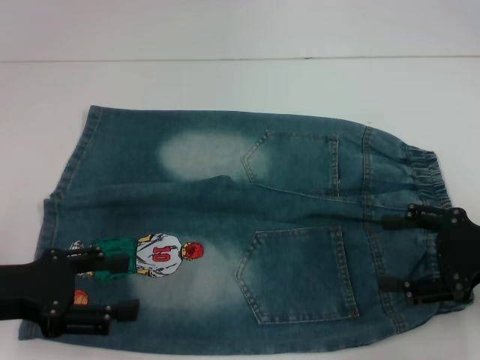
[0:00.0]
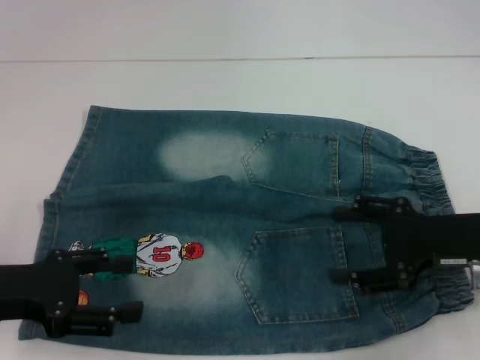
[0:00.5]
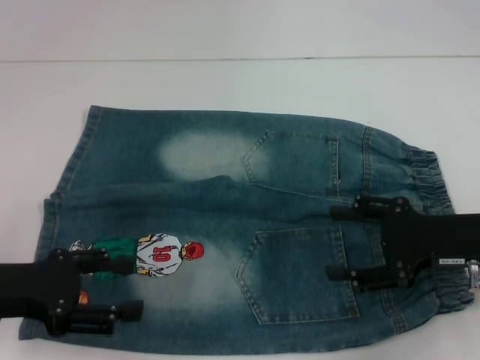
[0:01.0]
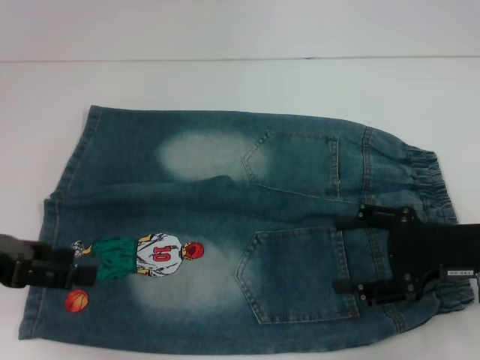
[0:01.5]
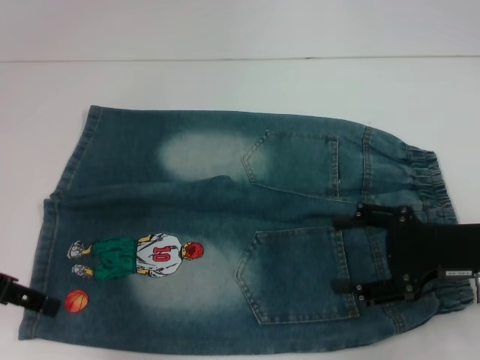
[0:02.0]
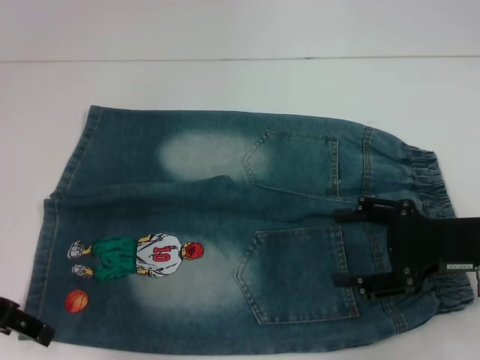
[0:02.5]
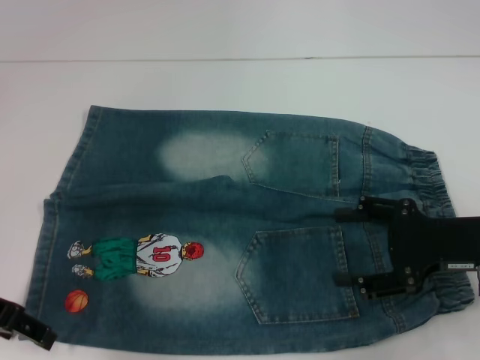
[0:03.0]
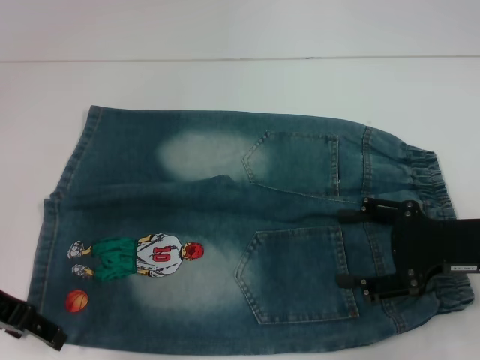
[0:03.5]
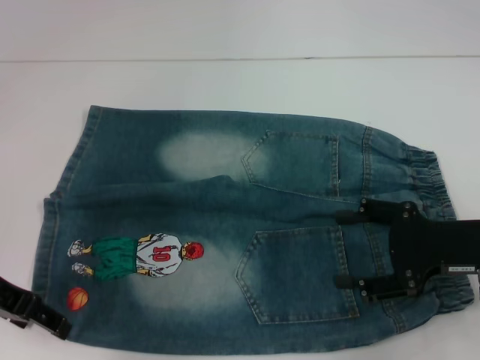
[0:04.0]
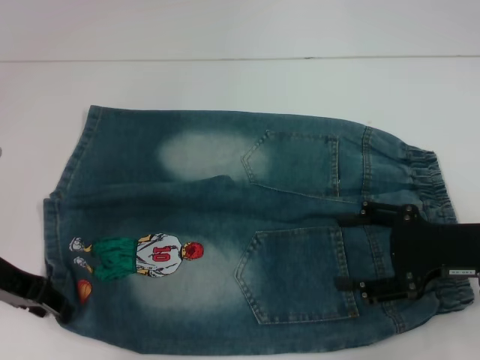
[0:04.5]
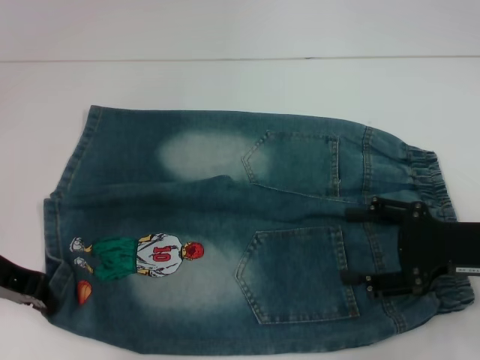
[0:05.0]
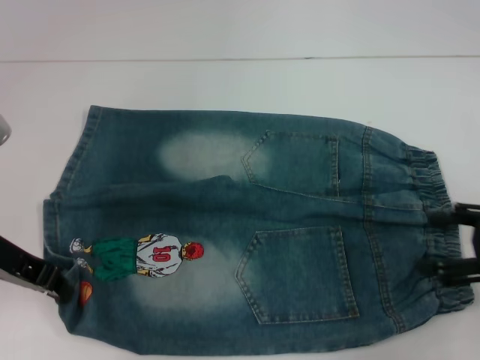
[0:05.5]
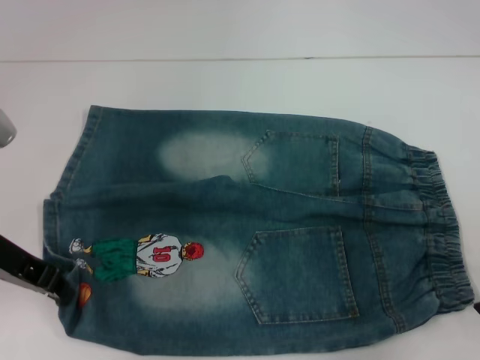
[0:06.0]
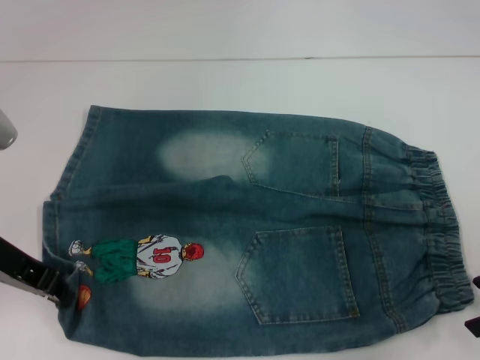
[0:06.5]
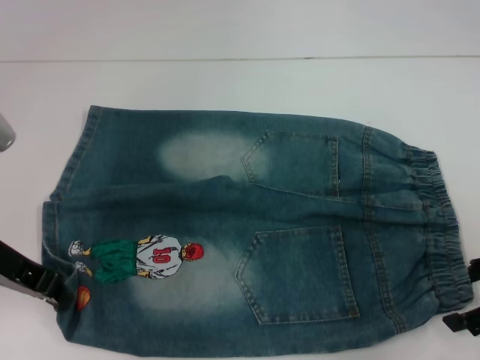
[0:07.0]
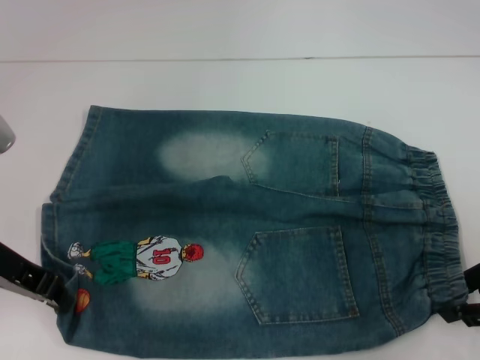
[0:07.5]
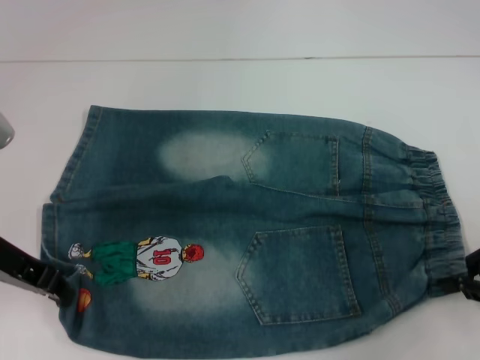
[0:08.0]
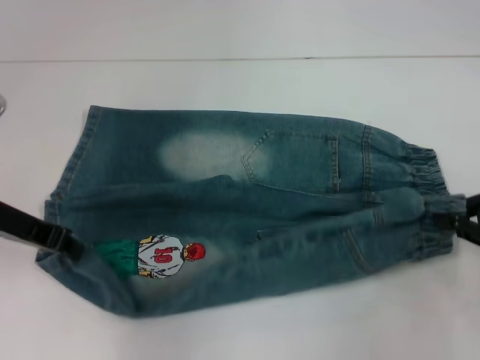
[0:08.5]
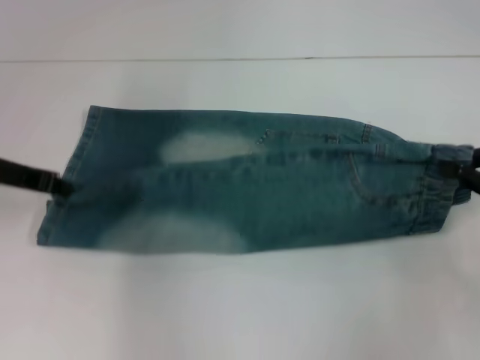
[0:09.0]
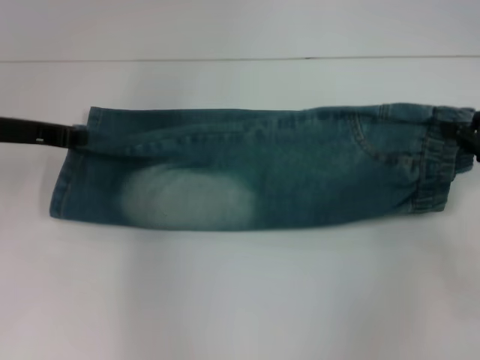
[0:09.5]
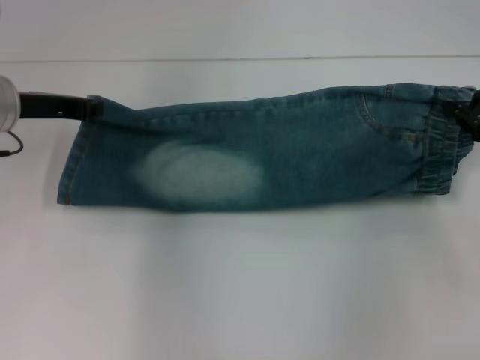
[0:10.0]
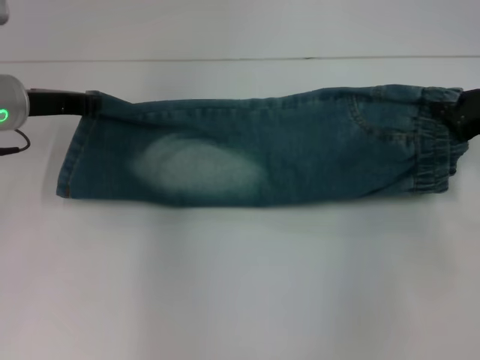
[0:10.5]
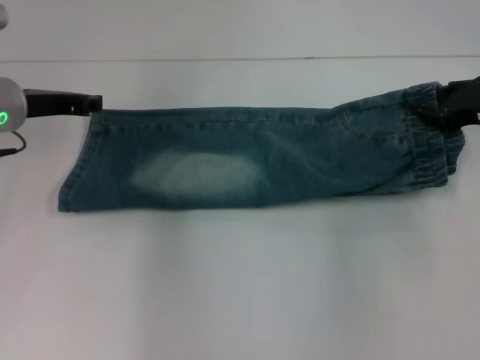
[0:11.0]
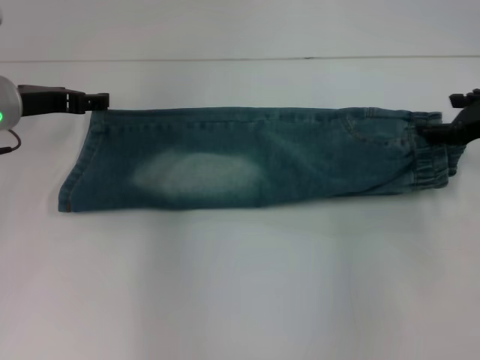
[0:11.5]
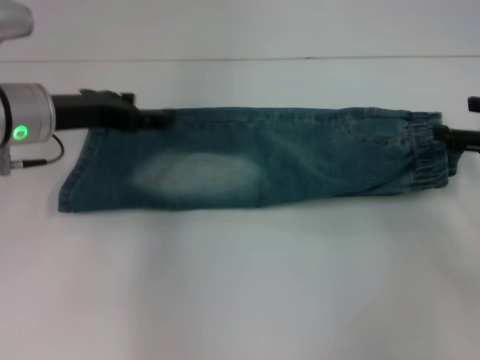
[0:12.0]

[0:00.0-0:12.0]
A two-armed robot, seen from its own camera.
Step, 0:00.0 to 0:05.0: Grab the lower left pant leg with your left hand.
Step, 0:05.5 to 0:07.5: Hold the lower right waistband with your right hand.
Step, 0:08.0 to 0:10.5: Fold upward with your left hand.
0:00.0 to 0:02.0: The left gripper moves upward, approximately 5 cm.
0:02.0 to 0:04.0: The grippers stay close to where they were, moving slightly.
0:04.0 to 0:06.0: The left gripper closes, while the right gripper heads to the right, covering some 10 cm.
0:06.0 to 0:08.0: The right gripper closes its fingers.
0:08.0 to 0:10.0: The grippers both shift forward by about 10 cm.
0:10.0 to 0:12.0: The left gripper opens up. The right gripper opens its fingers.

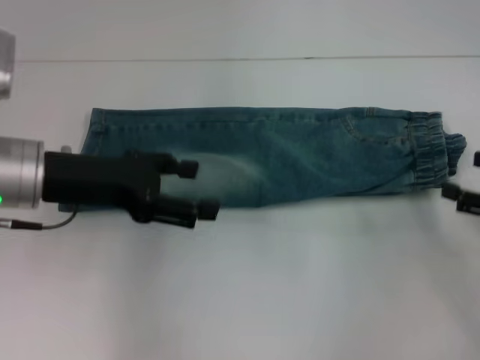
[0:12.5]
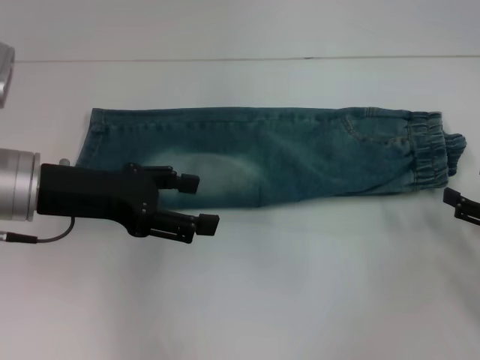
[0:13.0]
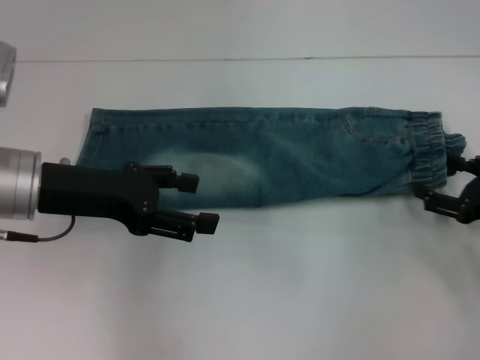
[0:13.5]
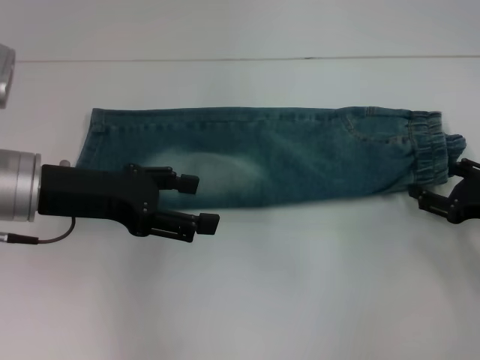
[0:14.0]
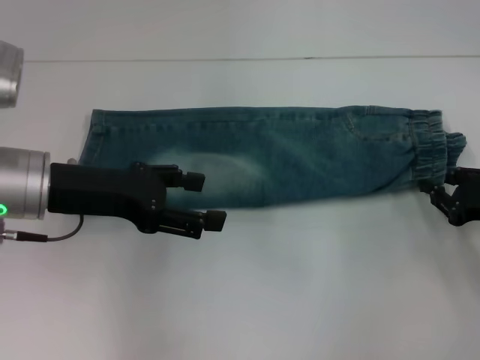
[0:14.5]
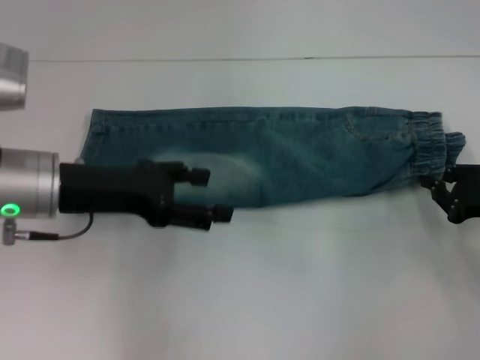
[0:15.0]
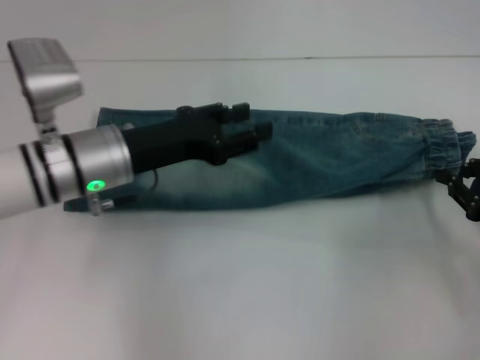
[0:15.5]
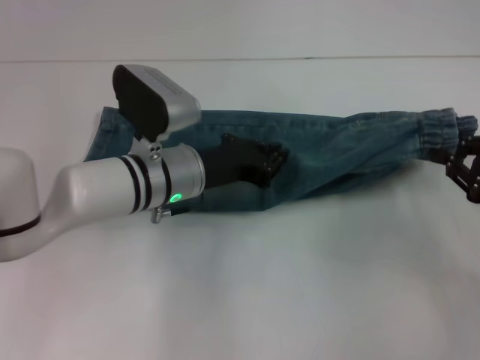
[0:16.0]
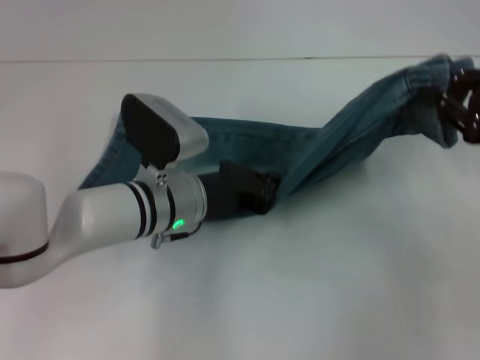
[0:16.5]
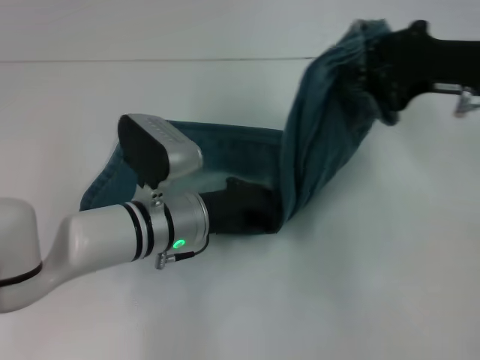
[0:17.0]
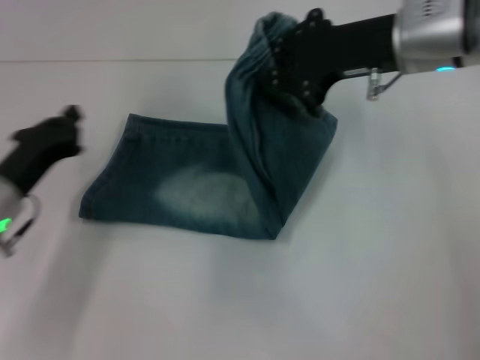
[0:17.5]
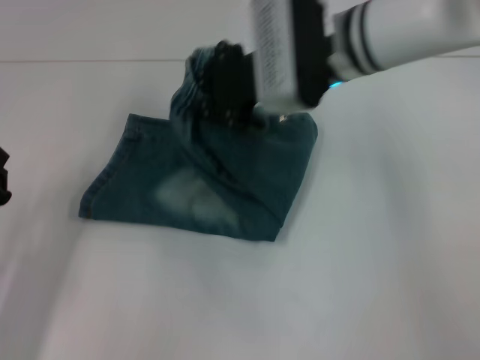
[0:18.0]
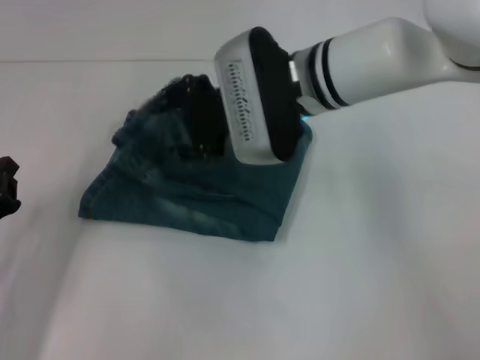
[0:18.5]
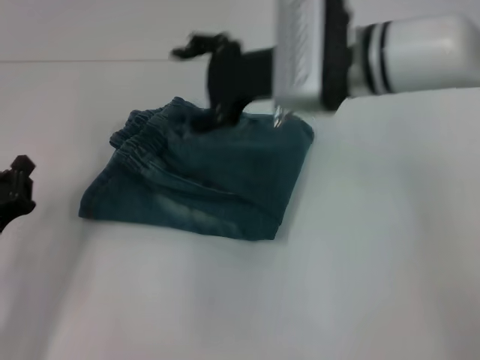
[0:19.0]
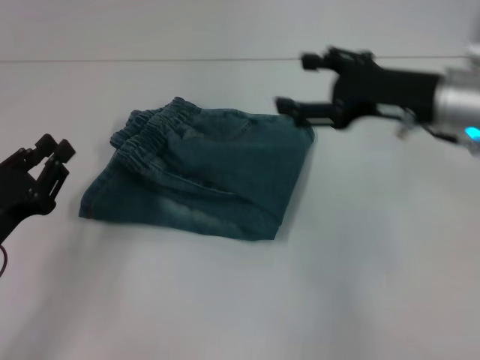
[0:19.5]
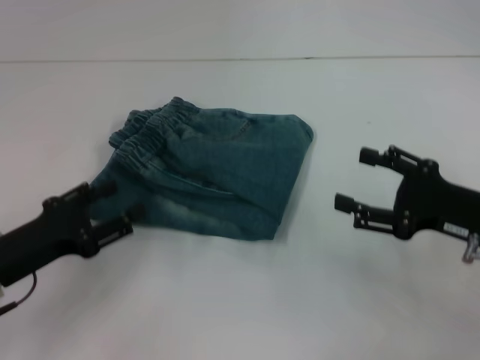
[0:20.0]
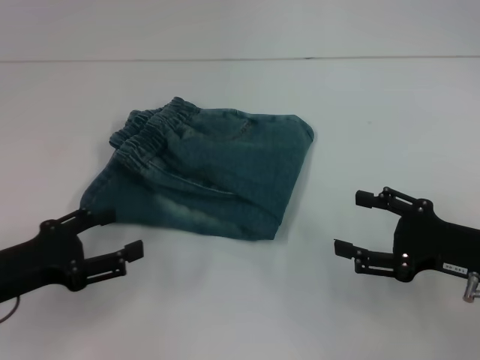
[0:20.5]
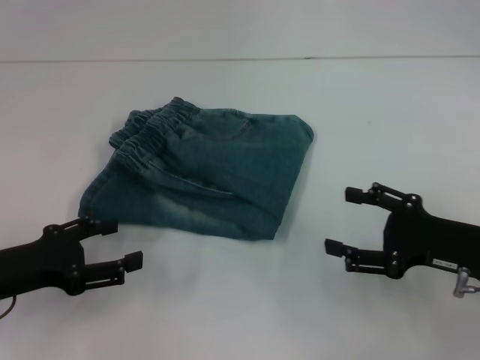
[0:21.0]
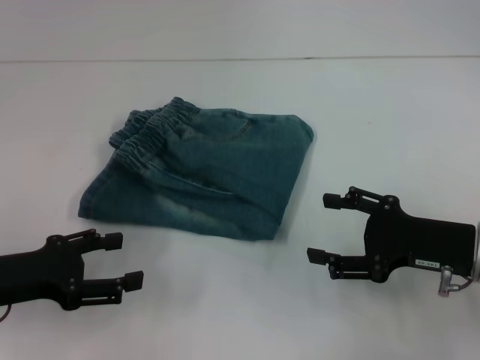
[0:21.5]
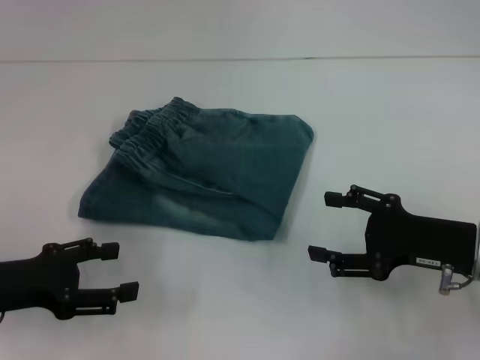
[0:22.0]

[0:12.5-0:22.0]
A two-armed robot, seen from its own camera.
Step, 0:12.5 to 0:14.5: Grab the waistband with your right hand.
Step, 0:15.0 to 0:16.5: Press the middle of the pants with your left hand.
Step, 0:17.0 to 0:18.5: Fold to the left with your right hand.
0:12.5 to 0:14.5: The right gripper moves about 5 cm, and closes up.
0:14.5 to 0:16.5: The left gripper shifts about 15 cm to the right and downward, and closes its fingers. The right gripper travels upward by roughly 10 cm, and closes its fingers.
0:16.5 to 0:18.0: The right gripper is displaced to the left and forward by roughly 25 cm; the left gripper moves to the left and backward, roughly 25 cm.
0:18.0 to 0:20.0: The right gripper heads to the right, backward and downward, covering some 25 cm, and opens. Meanwhile the left gripper opens its fingers.
0:20.0 to 0:22.0: The left gripper opens up.

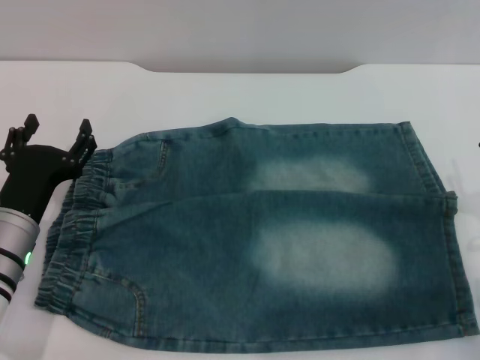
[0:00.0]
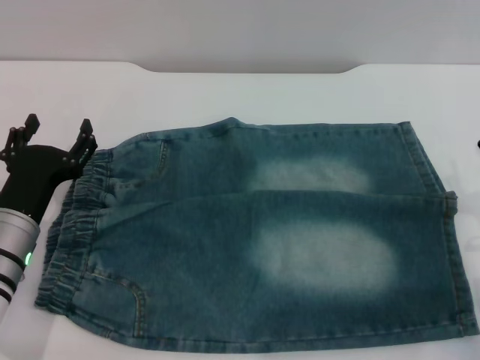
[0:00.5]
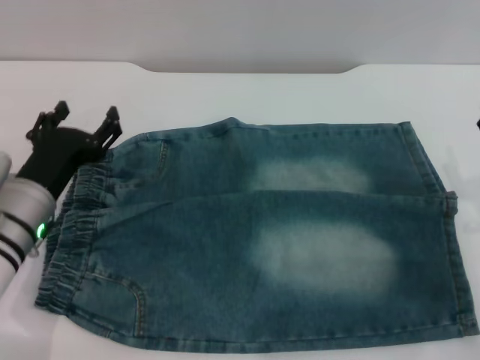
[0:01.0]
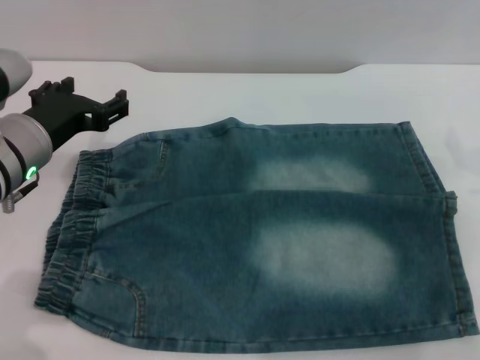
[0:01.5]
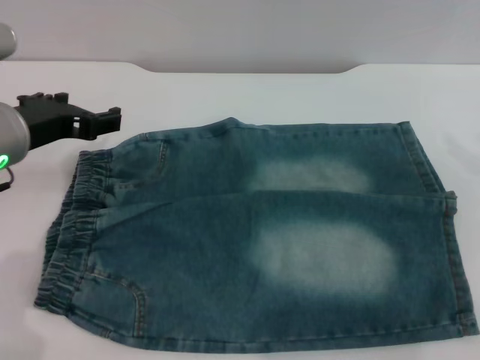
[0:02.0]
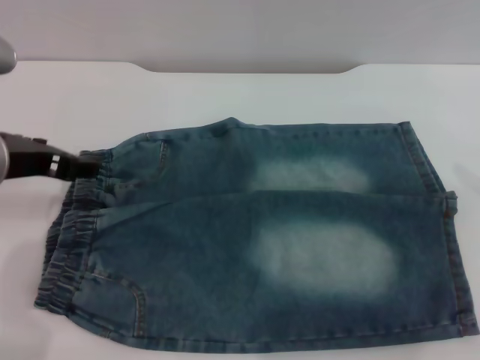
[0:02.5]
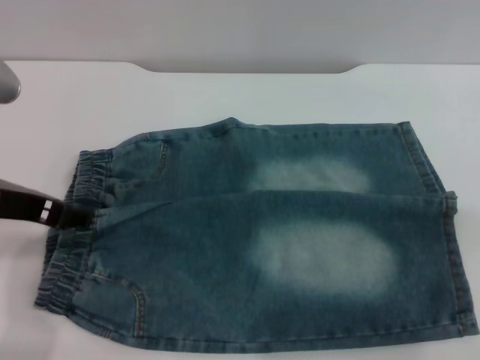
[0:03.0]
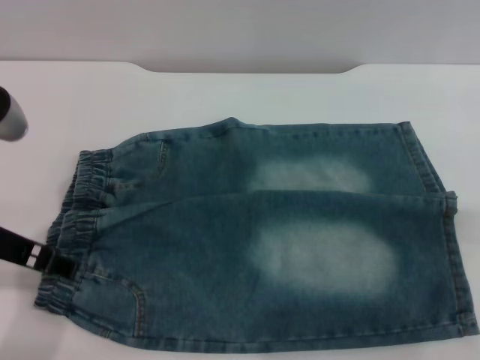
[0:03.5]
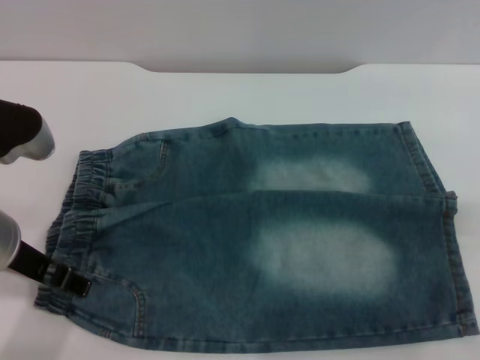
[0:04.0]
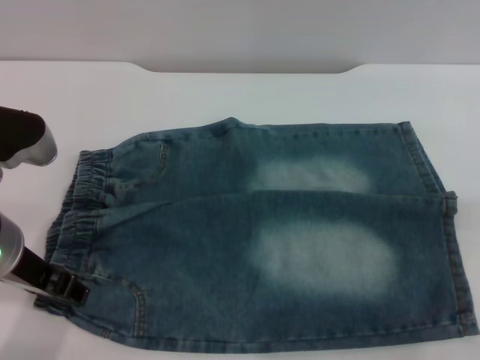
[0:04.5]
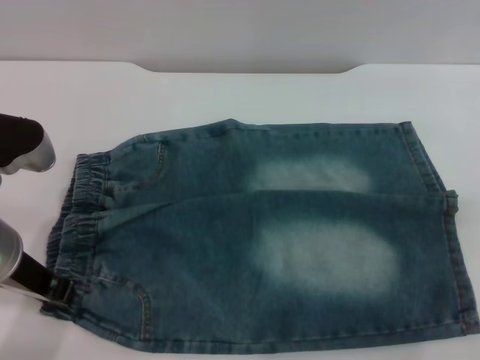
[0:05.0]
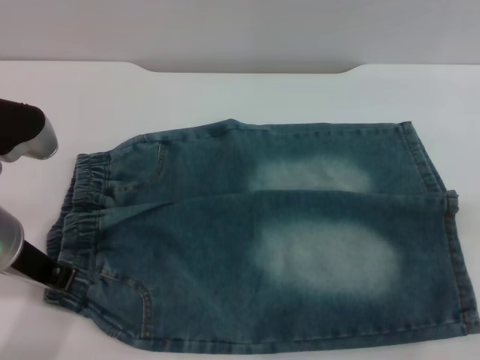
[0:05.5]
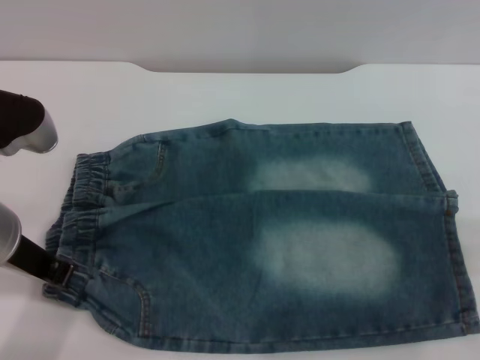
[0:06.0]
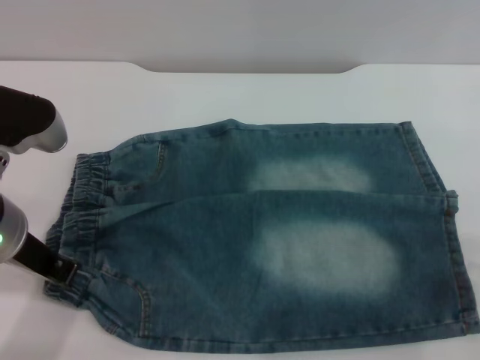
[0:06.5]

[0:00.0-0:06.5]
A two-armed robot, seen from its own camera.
0:00.0 to 0:02.0: The left gripper goes approximately 15 cm upward.
0:04.5 to 0:06.5: The right gripper heads downward, covering some 10 cm; the left gripper closes its fingers.
